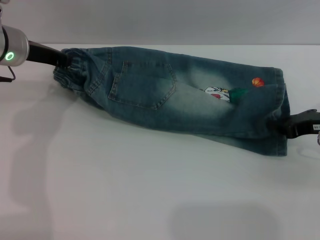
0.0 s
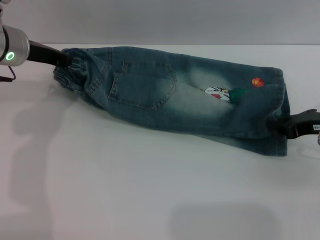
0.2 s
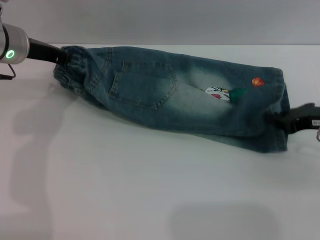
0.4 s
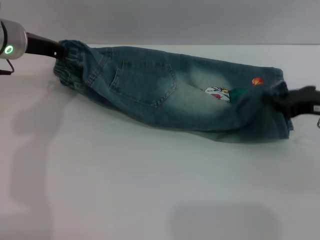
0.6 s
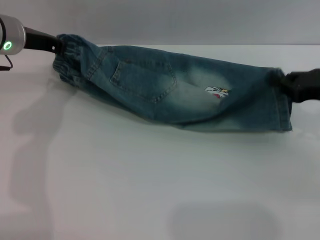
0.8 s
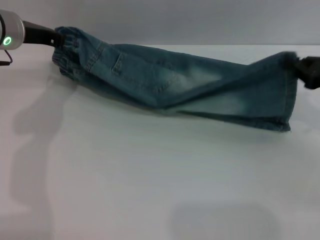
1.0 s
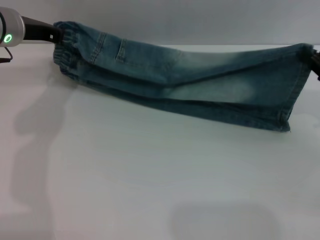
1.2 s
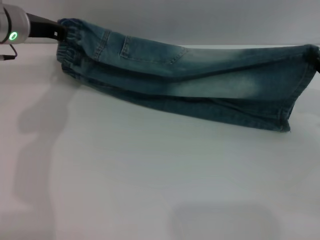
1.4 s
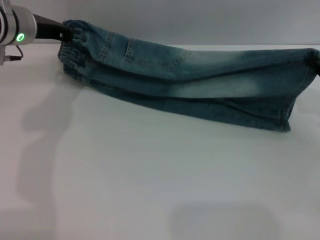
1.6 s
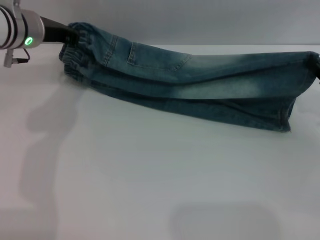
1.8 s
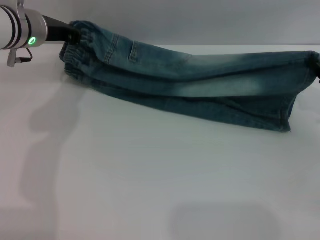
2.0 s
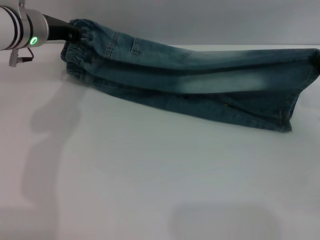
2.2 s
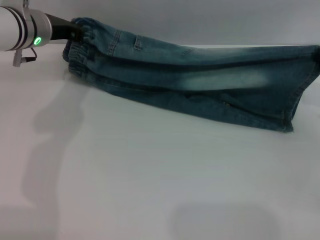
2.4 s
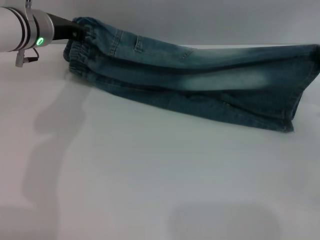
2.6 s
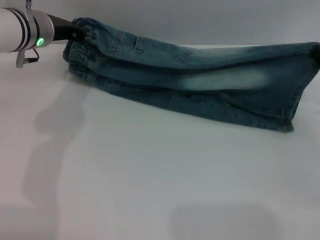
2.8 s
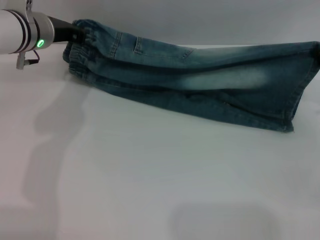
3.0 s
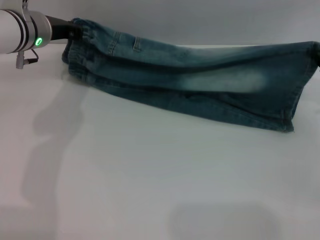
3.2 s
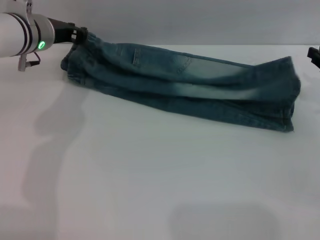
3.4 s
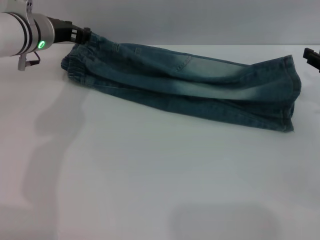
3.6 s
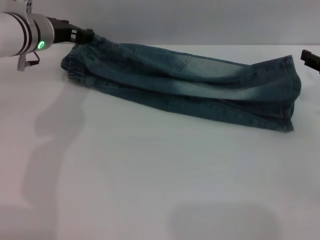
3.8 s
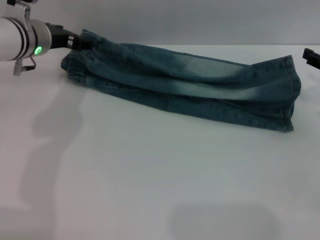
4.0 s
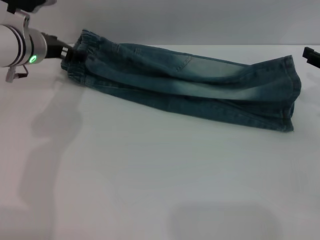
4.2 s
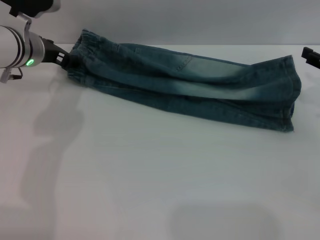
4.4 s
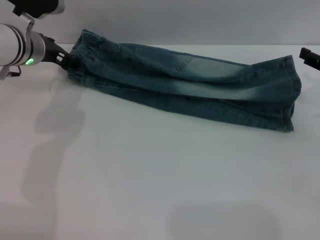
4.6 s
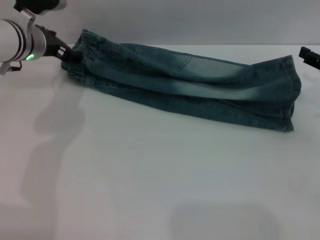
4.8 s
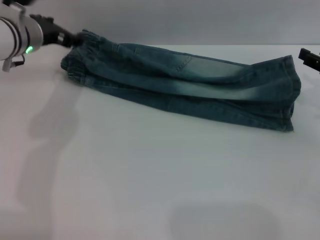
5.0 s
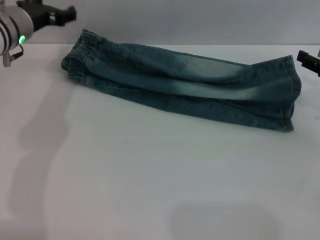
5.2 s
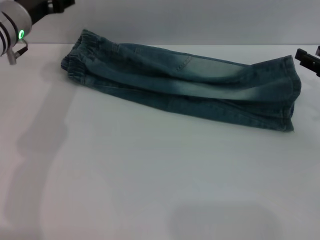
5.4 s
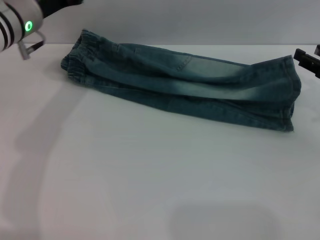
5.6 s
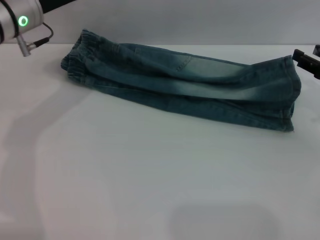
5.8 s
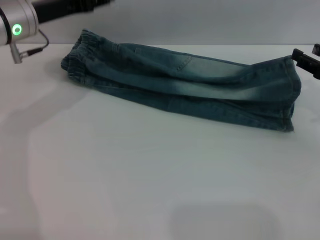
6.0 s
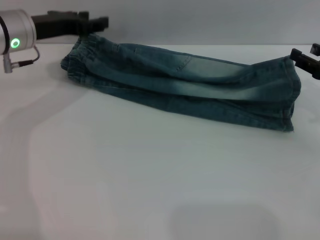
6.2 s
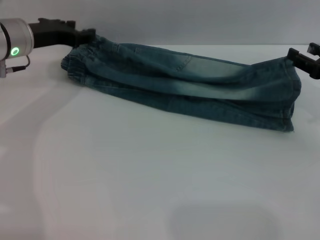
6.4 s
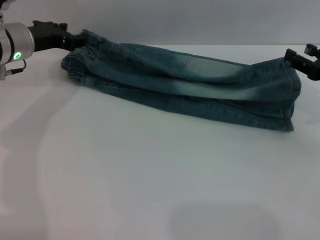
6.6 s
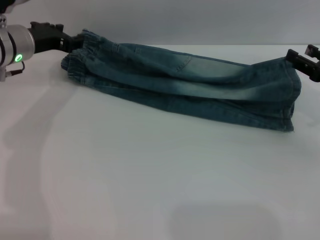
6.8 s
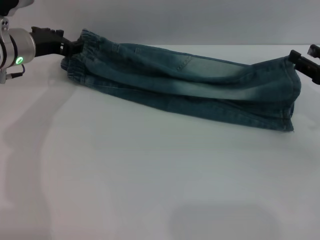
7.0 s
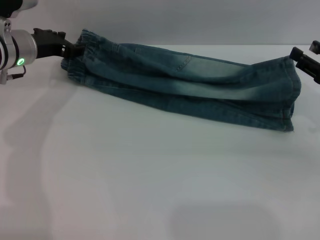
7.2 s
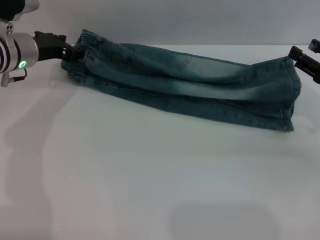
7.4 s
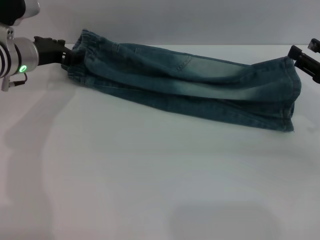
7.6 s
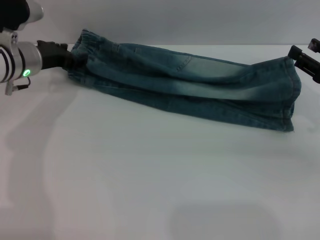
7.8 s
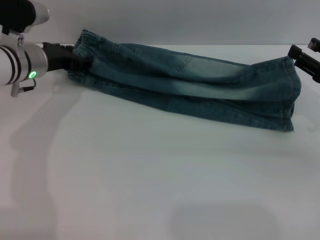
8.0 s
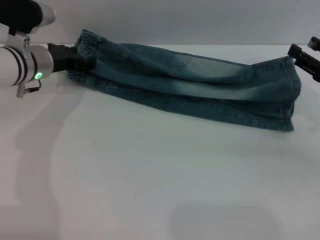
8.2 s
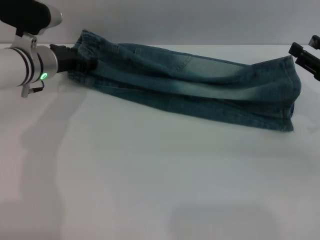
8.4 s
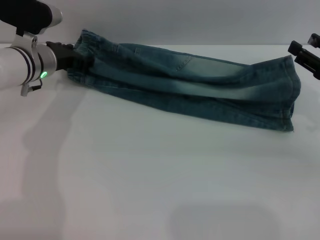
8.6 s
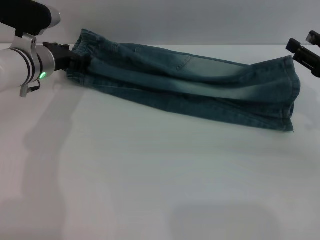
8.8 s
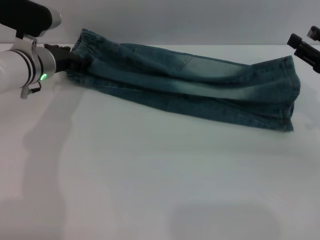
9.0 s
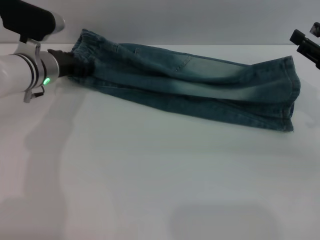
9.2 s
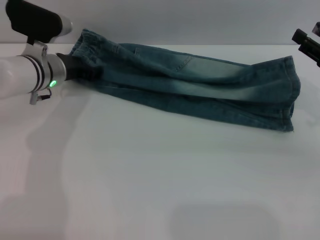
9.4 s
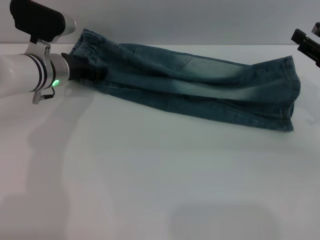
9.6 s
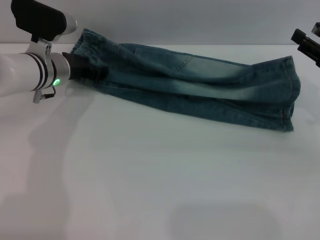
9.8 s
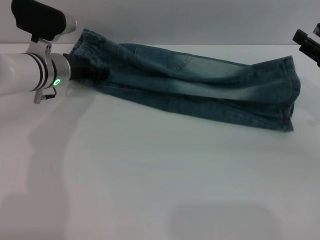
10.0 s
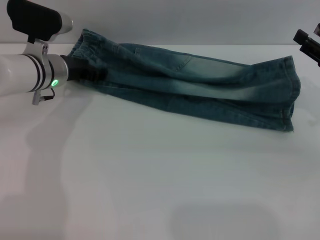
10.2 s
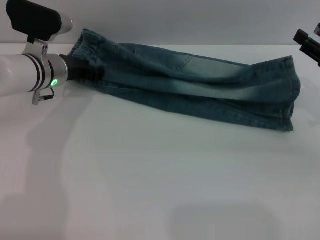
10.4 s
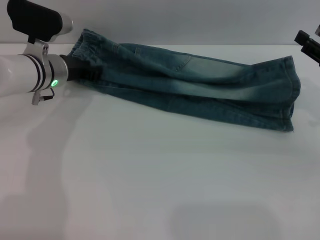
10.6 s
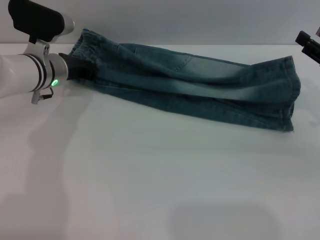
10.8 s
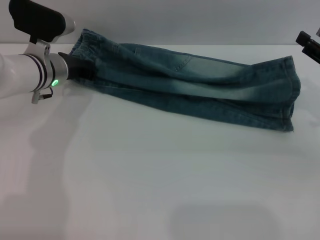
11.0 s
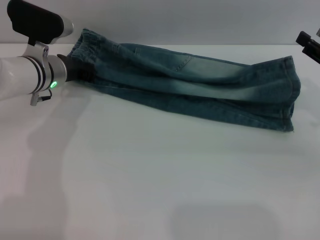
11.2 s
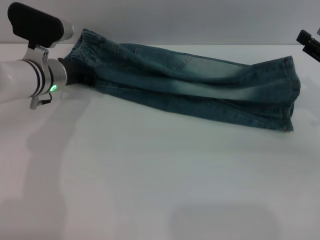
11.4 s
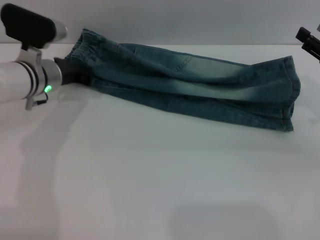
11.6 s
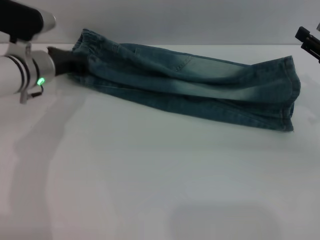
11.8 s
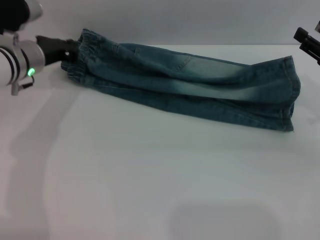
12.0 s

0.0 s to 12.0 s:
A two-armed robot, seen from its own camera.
Step, 0.0 to 4.4 s: Fold the bottom of the pants upward with both grippers.
1.6 to 3.0 s: The grippers move only a little.
3.0 to 4.4 s: The left gripper opens; the right gripper opens.
6.0 to 7.6 s: The left gripper goes about 5 cm downward.
7.6 to 10.4 s: The grippers move only a little.
10.4 to 12.0 s: The left gripper closes.

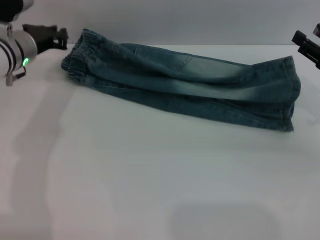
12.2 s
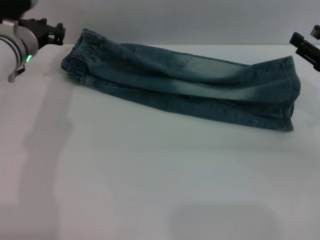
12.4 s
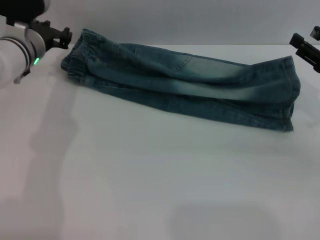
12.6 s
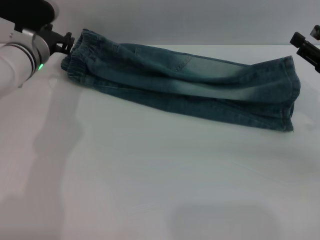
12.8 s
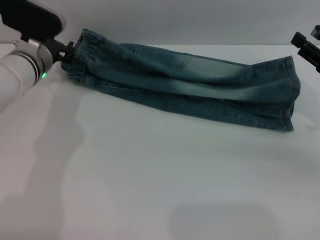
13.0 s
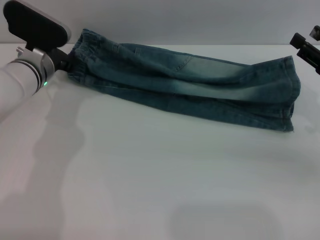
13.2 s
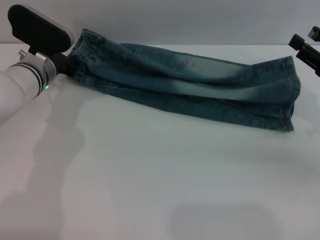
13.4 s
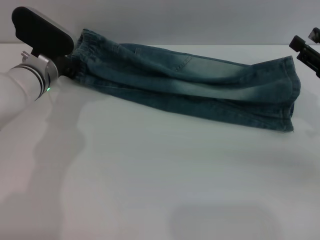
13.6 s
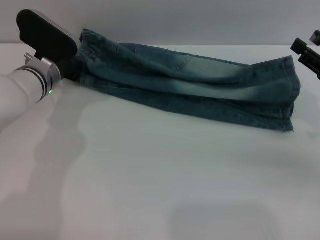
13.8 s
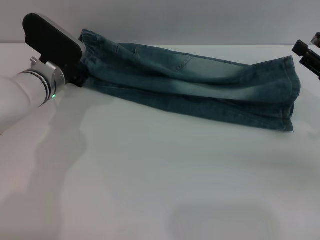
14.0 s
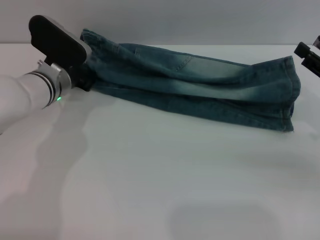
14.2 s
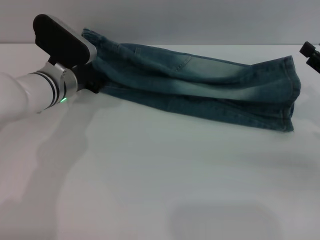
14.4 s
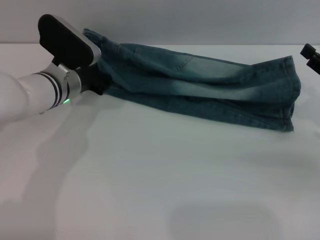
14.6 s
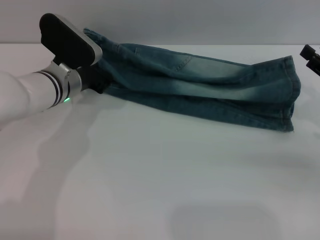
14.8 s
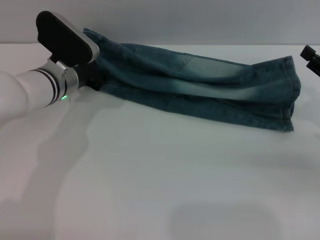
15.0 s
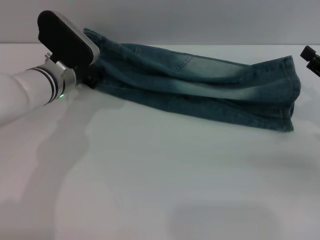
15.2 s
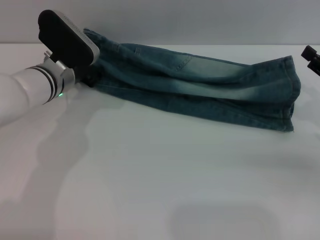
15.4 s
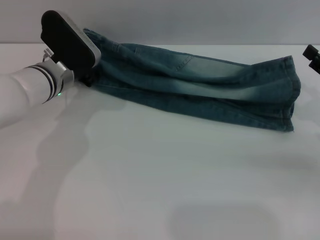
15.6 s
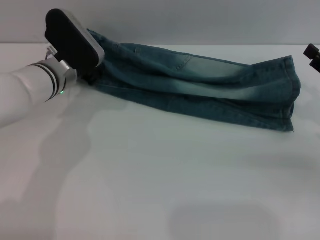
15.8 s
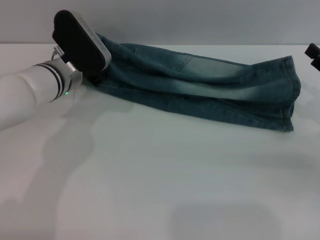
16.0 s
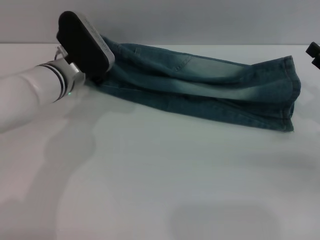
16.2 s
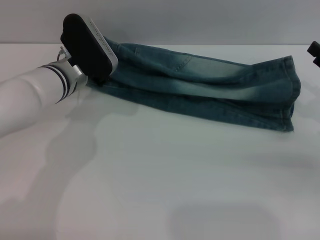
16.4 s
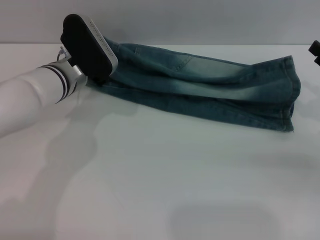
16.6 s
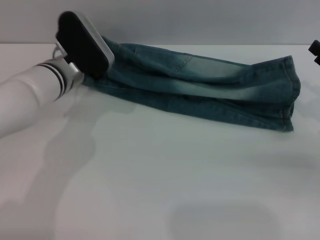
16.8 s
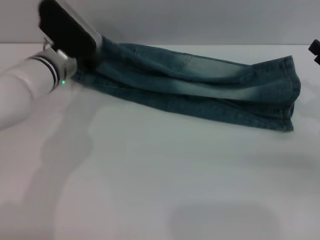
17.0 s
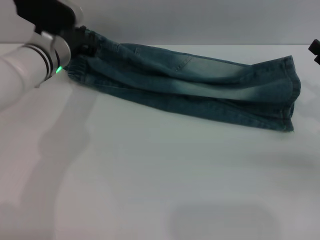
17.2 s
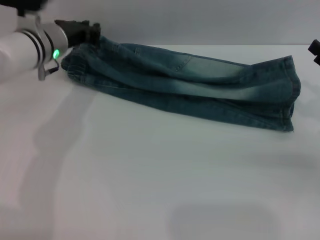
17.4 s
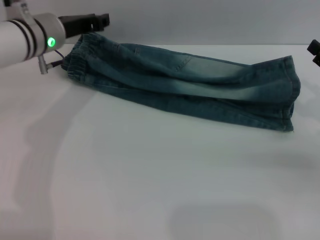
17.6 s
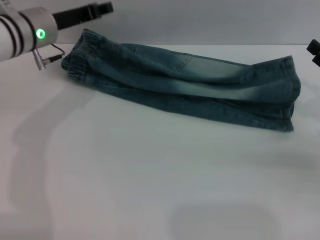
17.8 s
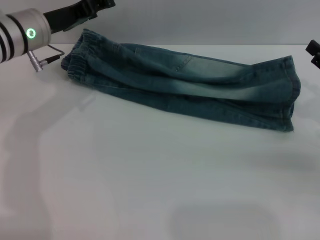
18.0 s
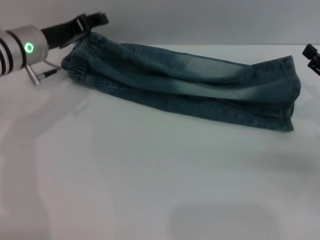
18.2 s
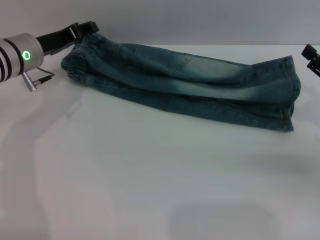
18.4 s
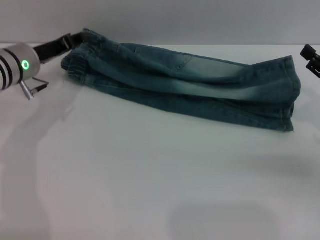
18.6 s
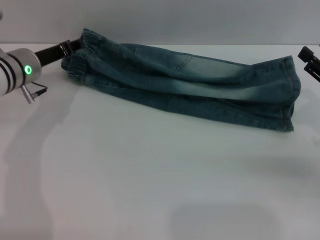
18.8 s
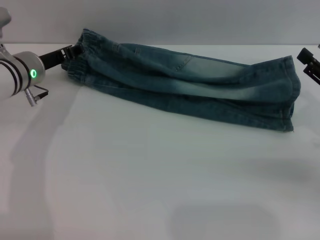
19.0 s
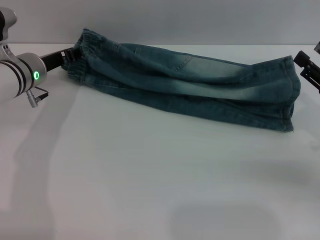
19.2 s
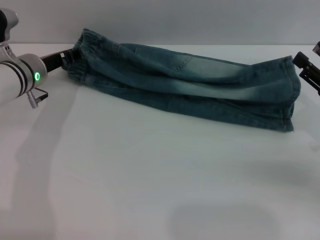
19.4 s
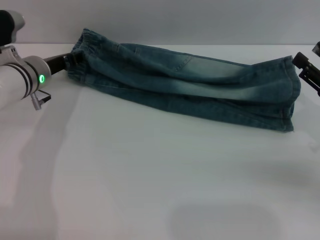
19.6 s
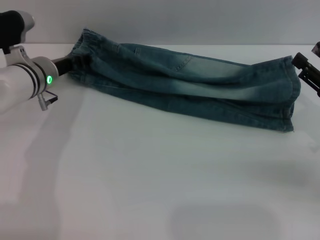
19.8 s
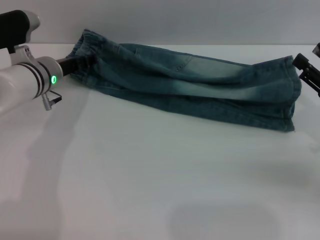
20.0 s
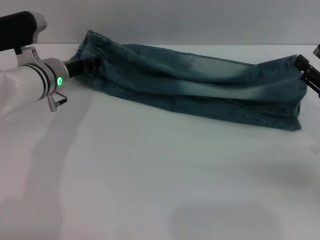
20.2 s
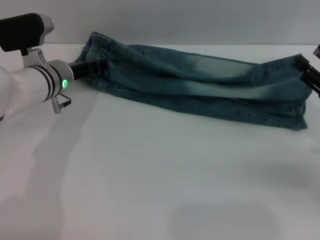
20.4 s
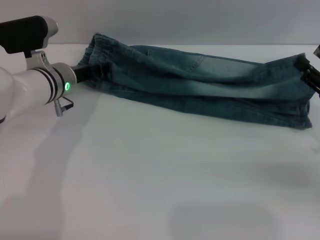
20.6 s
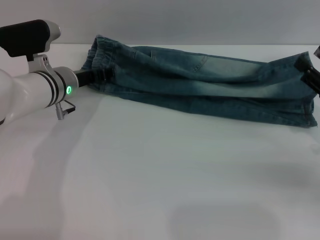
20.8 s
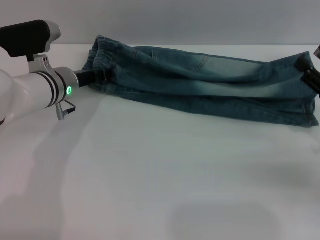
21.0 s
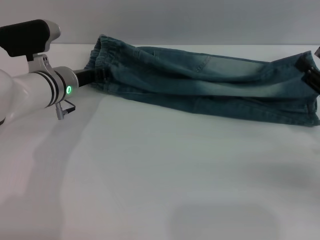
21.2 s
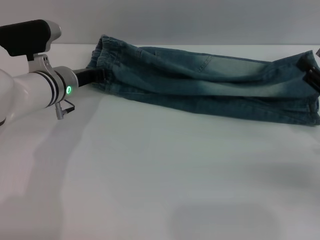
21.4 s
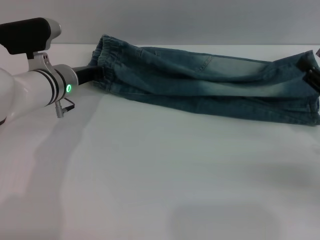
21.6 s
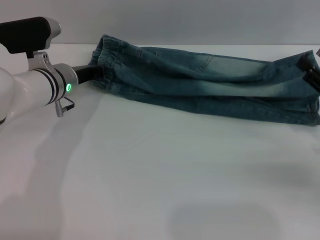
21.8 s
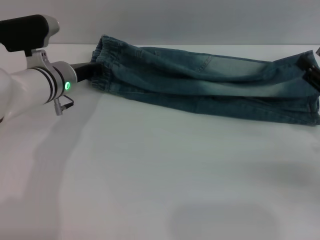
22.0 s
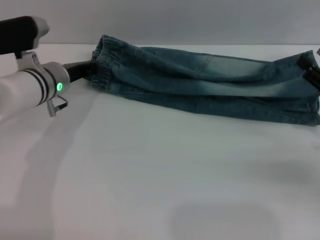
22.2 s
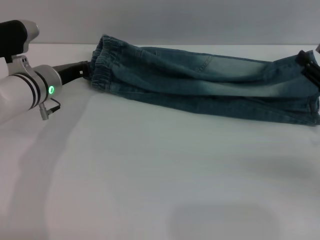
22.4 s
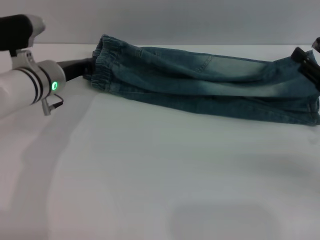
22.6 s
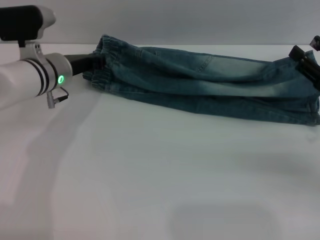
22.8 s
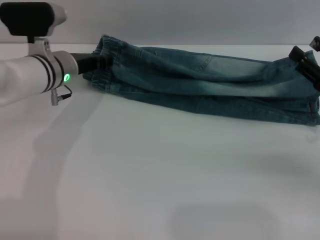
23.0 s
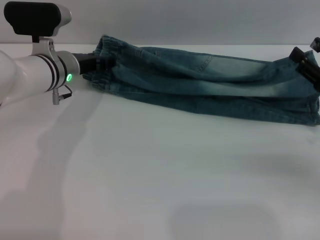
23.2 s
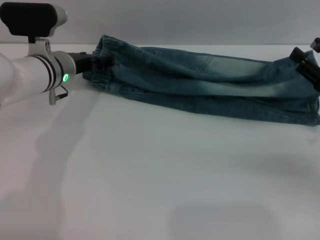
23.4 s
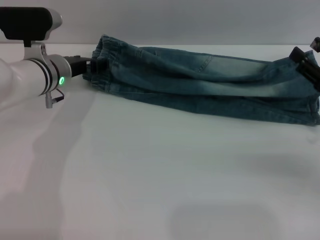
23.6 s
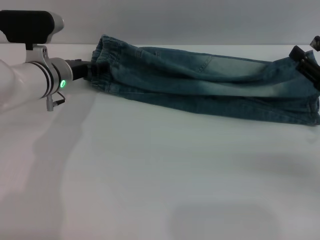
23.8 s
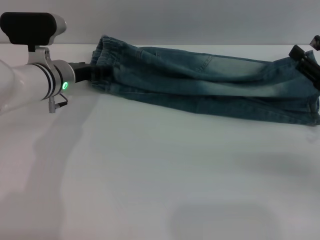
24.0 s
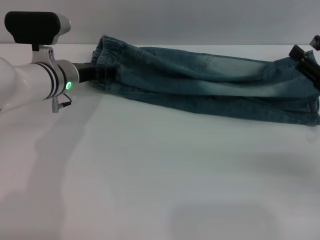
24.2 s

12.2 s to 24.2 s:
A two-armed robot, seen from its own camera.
12.2 to 13.8 s: The left gripper moves roughly 5 cm, and opens its fingers.
13.8 to 15.2 s: The grippers make only small movements.
15.2 to 16.6 s: There are only small adjustments of the grippers.
16.6 to 18.2 s: The left gripper moves to the left, some 5 cm, and opens its fingers.
18.2 to 19.8 s: The left gripper moves downward, about 5 cm.
19.8 to 21.2 s: The grippers make only small movements.
21.2 to 22.6 s: The left gripper closes its fingers.
22.6 to 24.2 s: The left gripper opens.
